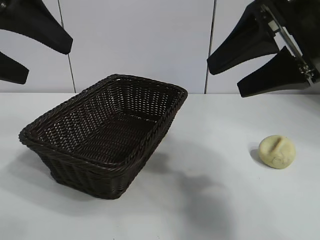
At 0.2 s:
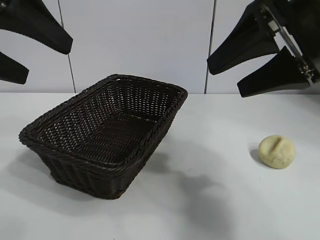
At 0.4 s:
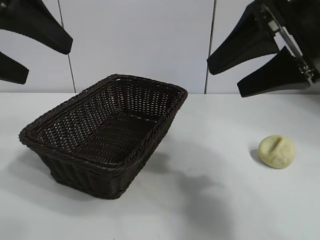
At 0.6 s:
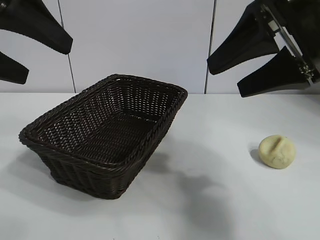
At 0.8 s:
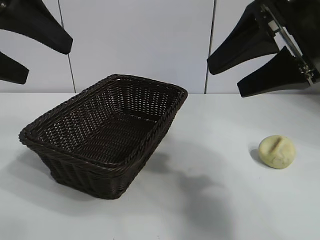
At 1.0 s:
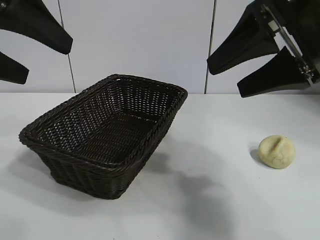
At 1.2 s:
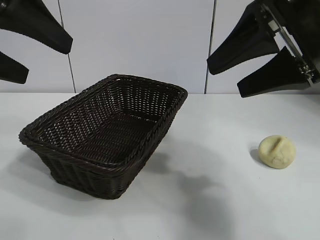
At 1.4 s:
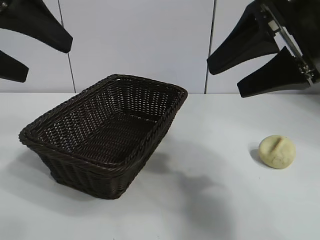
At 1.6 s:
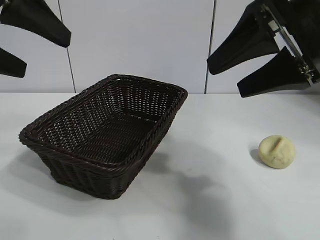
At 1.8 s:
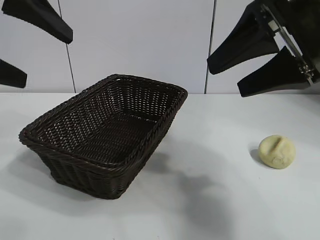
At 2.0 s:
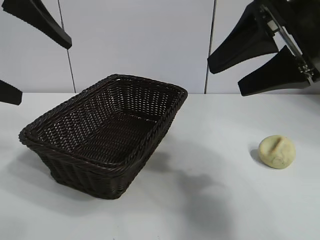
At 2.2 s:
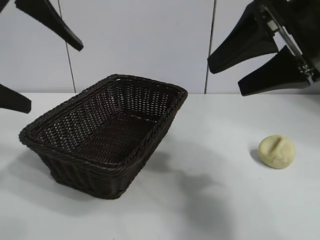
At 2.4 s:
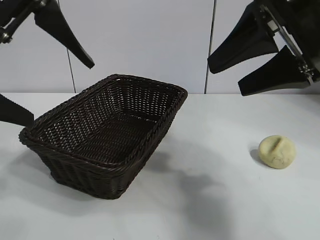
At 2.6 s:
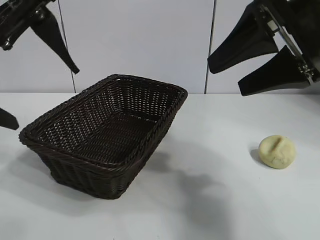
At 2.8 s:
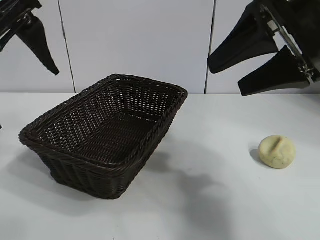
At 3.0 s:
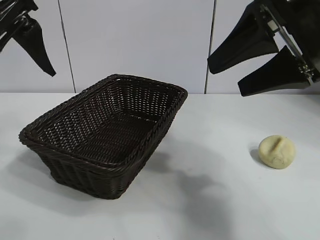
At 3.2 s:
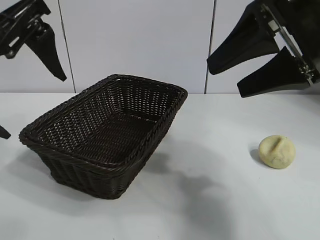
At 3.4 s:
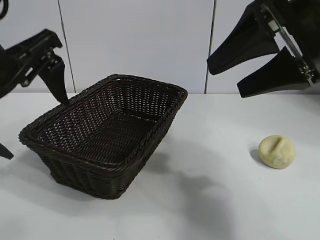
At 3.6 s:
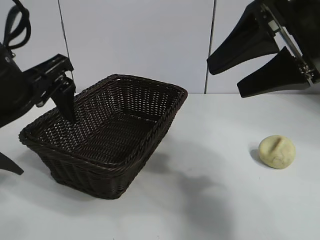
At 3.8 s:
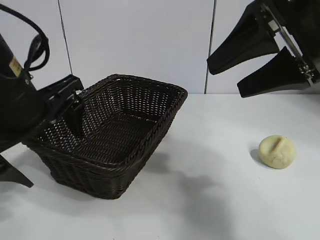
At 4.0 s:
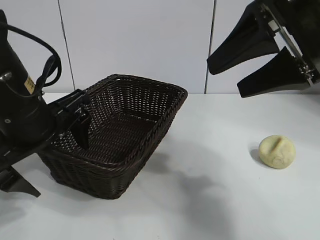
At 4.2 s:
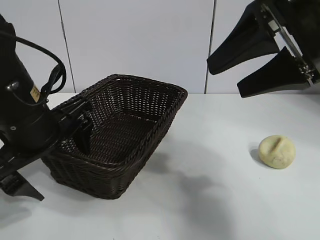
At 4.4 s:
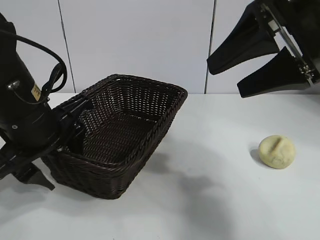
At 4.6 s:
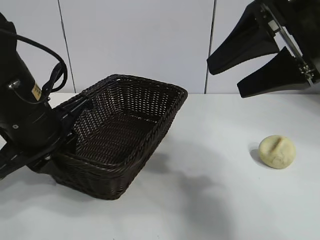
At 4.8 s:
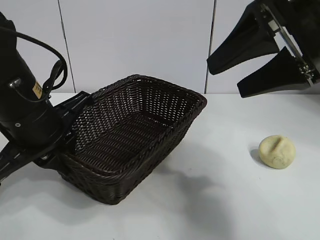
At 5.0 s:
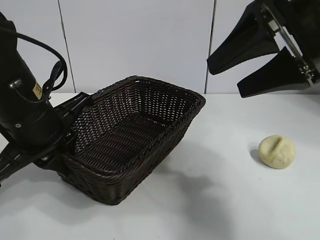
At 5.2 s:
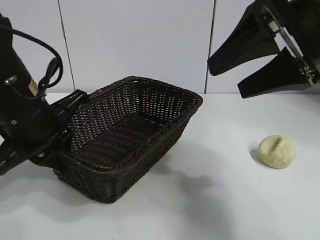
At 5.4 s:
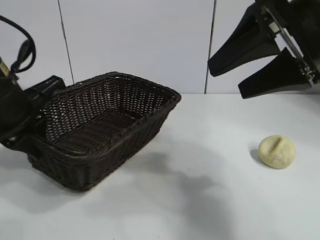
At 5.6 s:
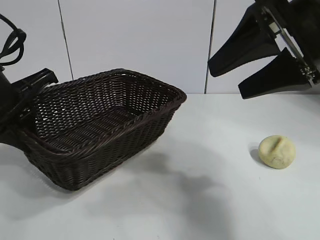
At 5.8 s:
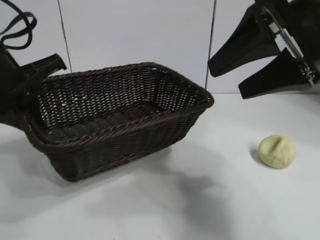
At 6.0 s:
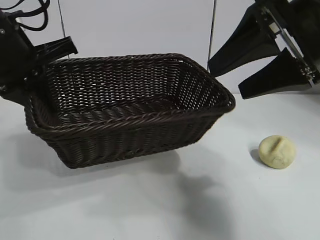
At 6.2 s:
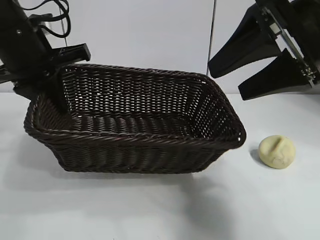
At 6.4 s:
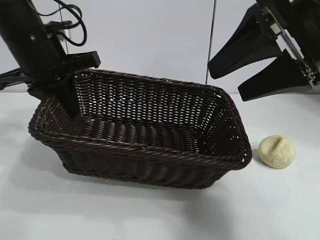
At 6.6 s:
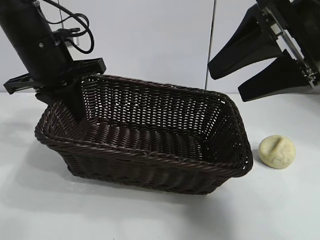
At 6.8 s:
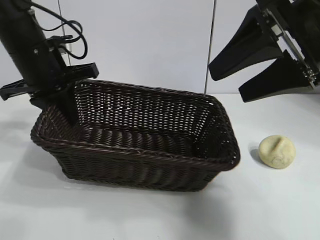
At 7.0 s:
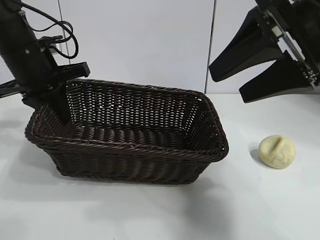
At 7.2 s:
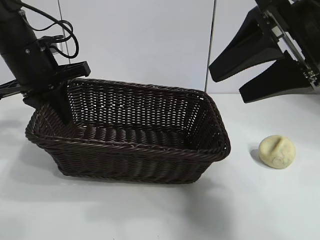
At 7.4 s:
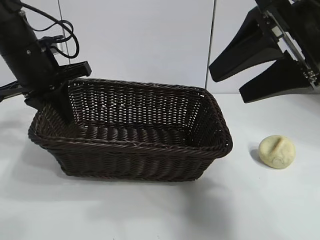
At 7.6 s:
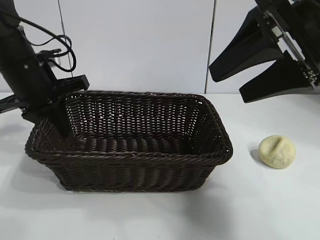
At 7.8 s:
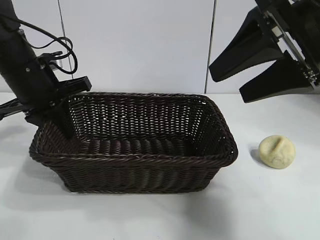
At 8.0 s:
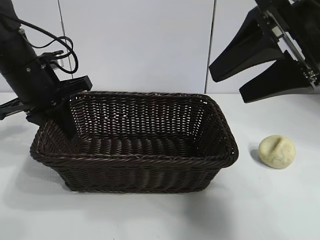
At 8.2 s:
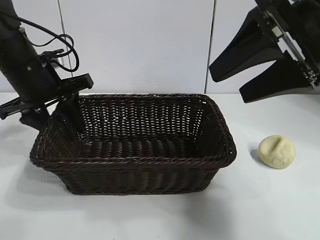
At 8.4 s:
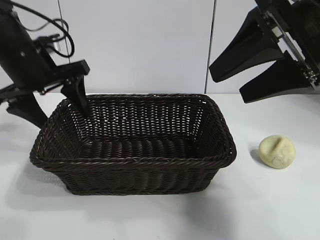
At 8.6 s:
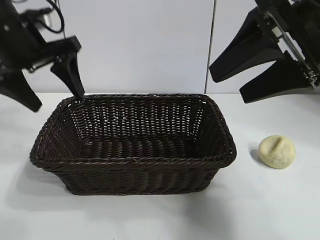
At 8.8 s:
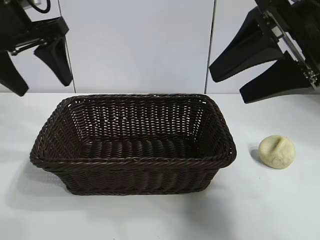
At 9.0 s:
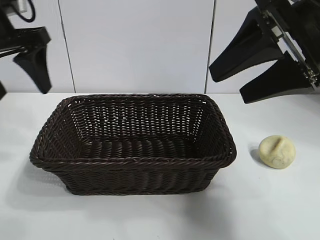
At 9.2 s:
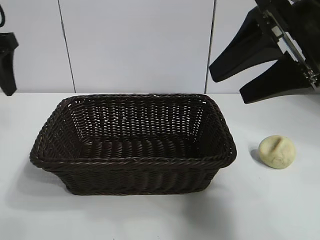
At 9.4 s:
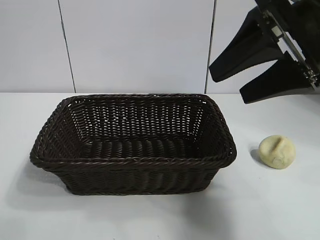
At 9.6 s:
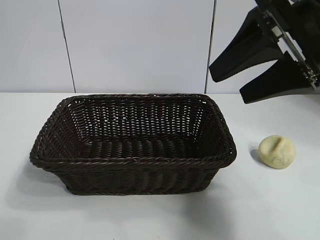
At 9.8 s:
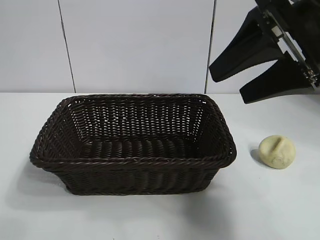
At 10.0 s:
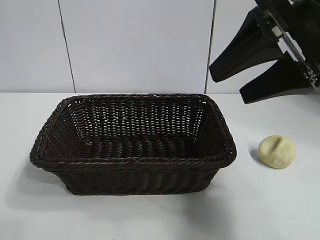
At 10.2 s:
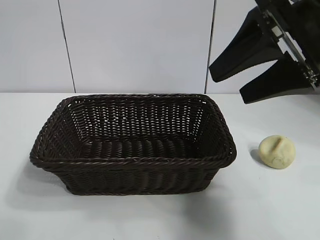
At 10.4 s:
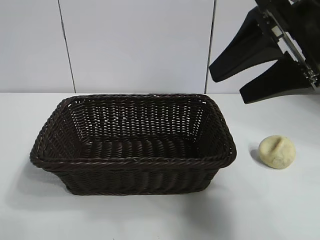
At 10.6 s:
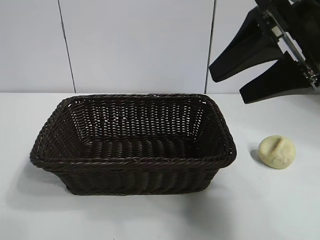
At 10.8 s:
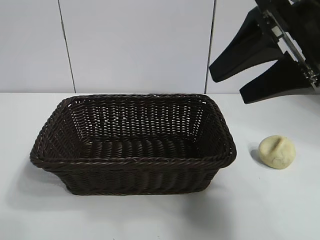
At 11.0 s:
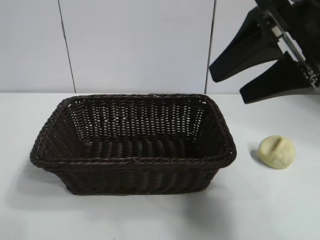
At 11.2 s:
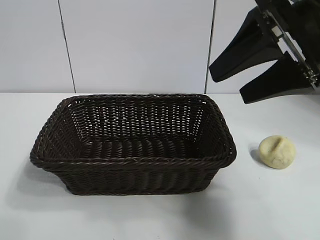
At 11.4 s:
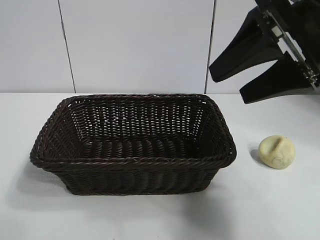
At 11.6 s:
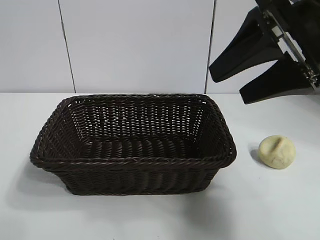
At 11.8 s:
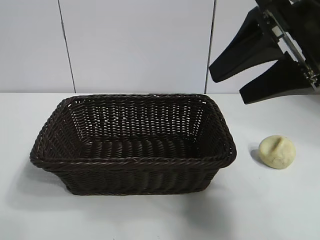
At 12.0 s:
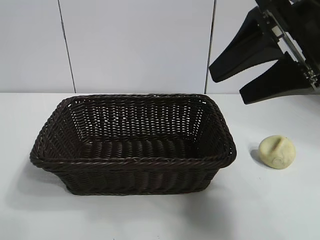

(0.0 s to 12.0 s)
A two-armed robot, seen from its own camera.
Task of the whole recording: pick up the egg yolk pastry and put it into the basket.
Step, 1.6 s - 4.6 s: Grasp the basket with left gripper.
Step, 4.8 s - 8.4 s: Place the basket in the center of view with left gripper.

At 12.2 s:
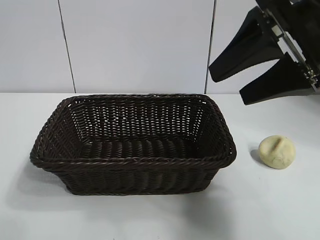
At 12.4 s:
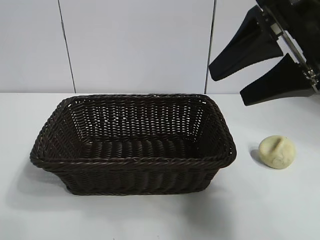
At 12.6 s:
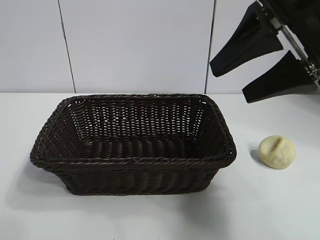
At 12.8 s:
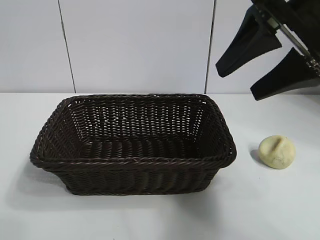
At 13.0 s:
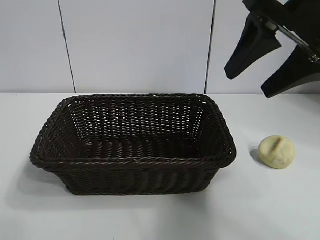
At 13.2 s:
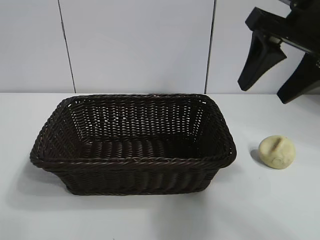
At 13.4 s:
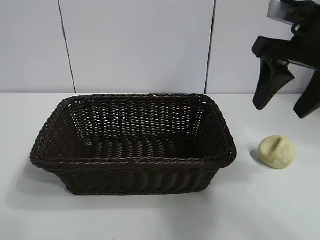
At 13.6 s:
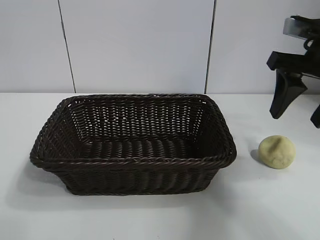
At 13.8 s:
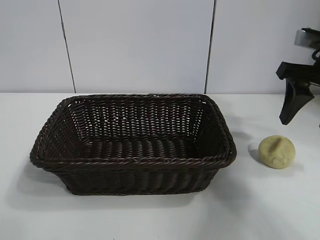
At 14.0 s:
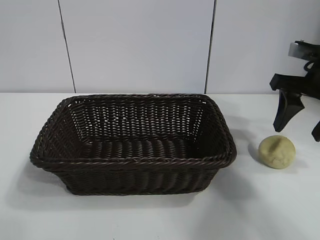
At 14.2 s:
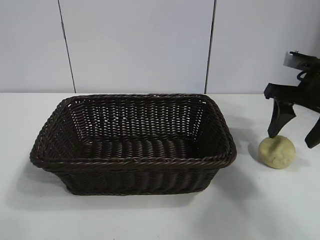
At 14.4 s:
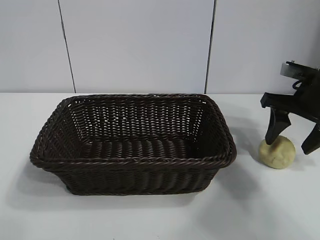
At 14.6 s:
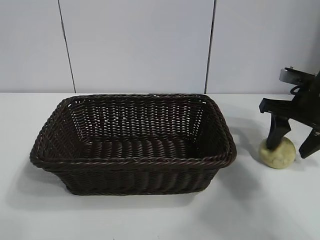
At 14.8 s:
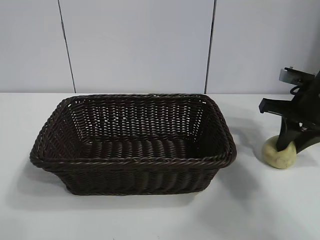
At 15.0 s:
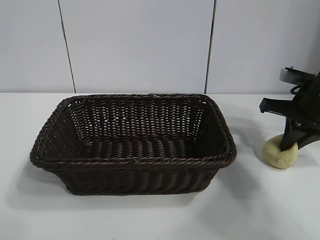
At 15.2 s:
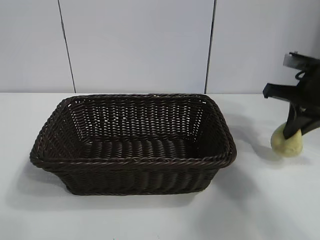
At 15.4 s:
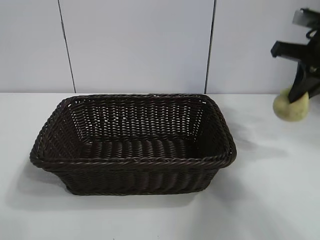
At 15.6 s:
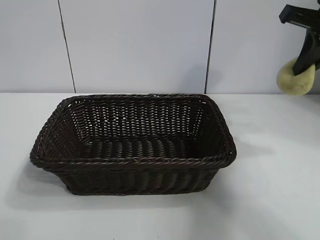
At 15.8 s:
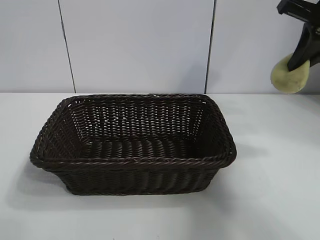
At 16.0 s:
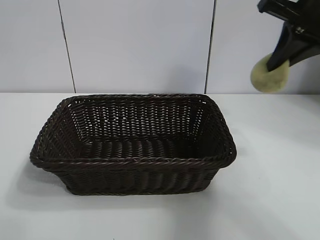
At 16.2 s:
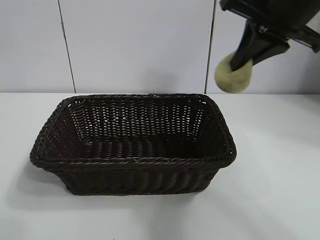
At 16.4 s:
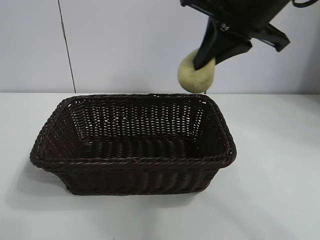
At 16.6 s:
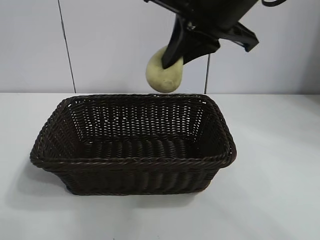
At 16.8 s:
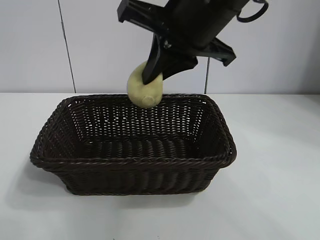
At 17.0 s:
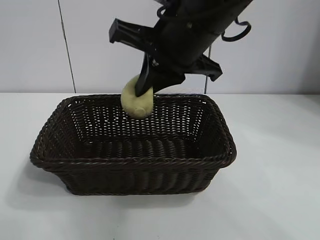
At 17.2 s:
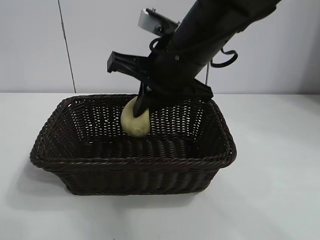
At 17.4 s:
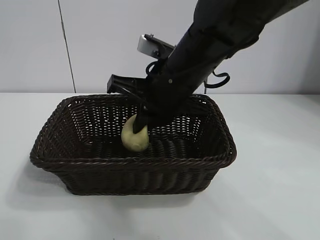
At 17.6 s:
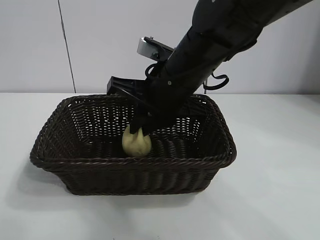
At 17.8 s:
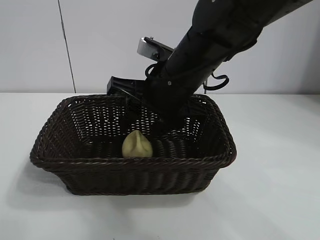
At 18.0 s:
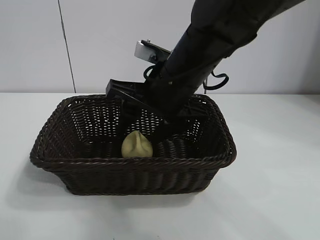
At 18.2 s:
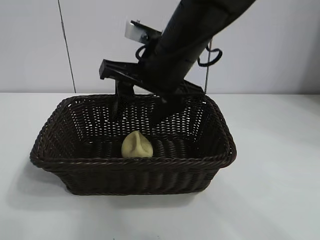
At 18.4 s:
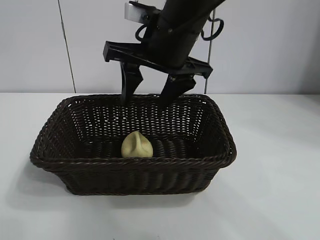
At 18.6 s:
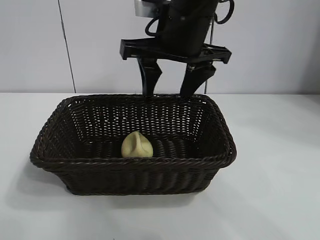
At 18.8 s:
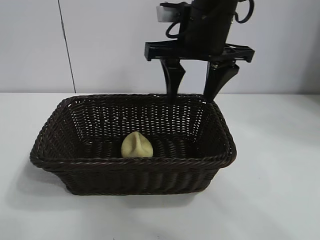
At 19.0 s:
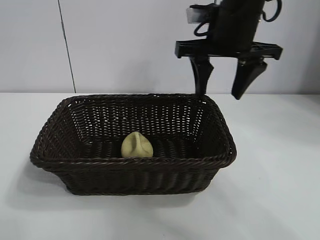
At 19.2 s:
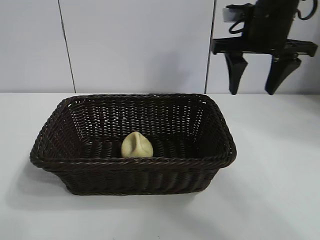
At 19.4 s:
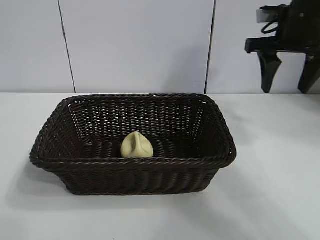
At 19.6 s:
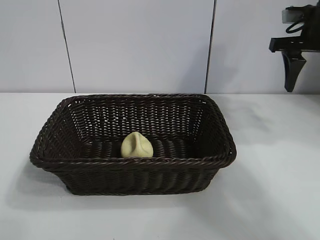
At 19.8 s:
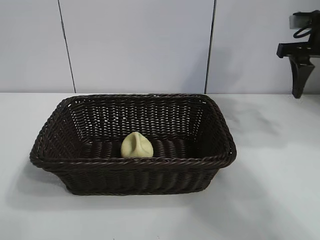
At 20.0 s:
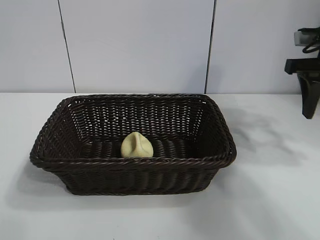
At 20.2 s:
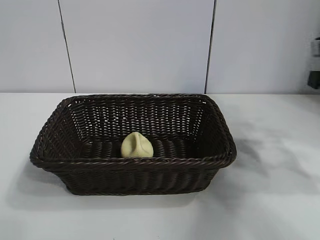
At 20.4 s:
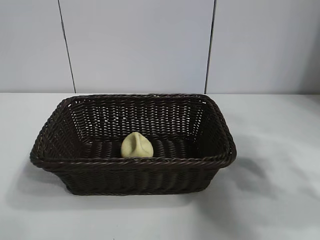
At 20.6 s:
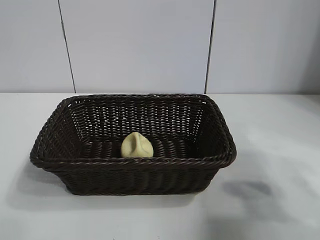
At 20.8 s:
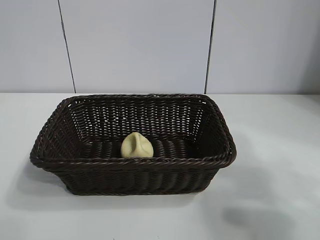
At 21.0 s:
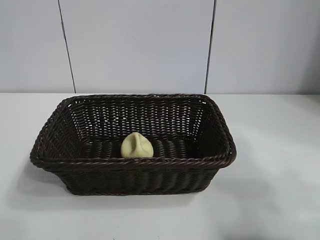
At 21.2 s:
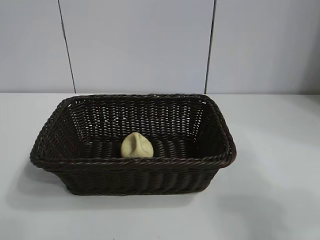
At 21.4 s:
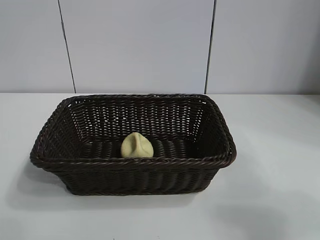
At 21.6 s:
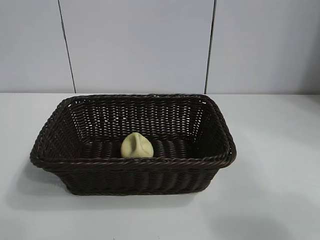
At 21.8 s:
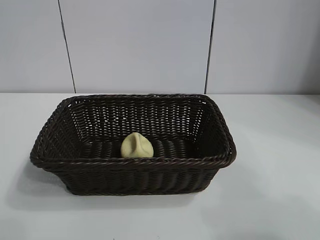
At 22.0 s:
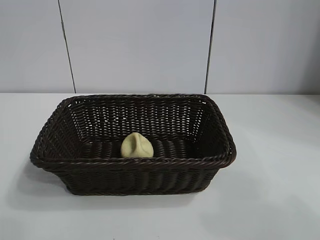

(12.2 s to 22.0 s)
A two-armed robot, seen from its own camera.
Task of the whole recording: pick up the egg yolk pastry and put it into the basket.
Step, 12.2 s - 14.8 s: Grasp egg yolk pastry with right gripper.
Step, 15.2 s - 18.0 s: Place the egg yolk pastry in the basket with right gripper.
